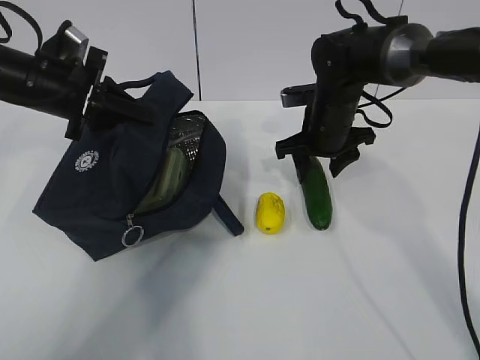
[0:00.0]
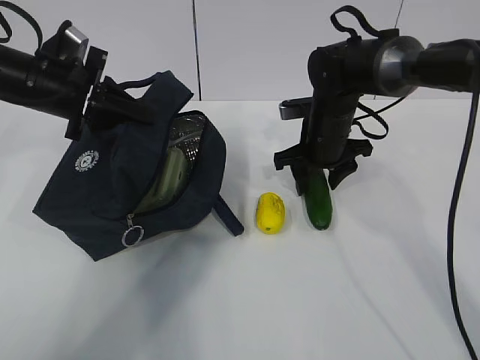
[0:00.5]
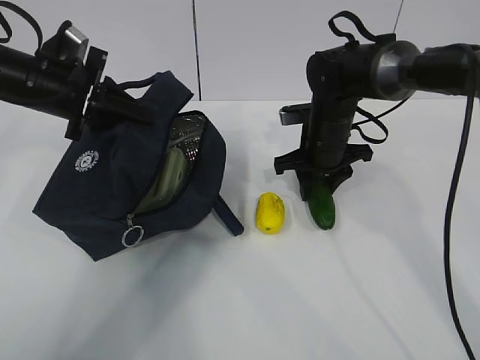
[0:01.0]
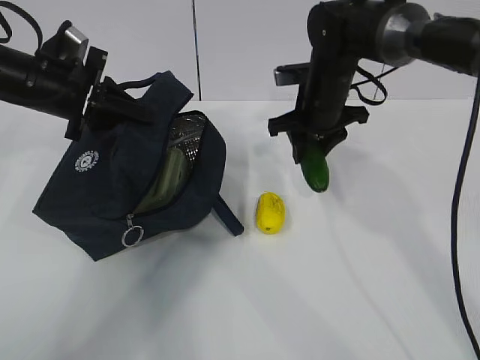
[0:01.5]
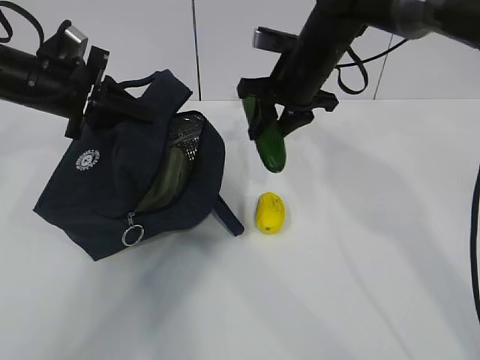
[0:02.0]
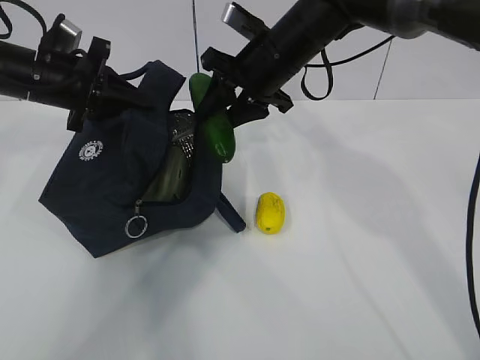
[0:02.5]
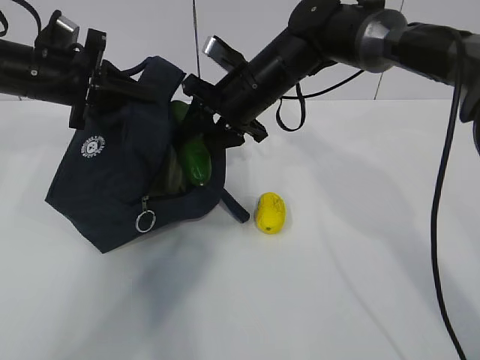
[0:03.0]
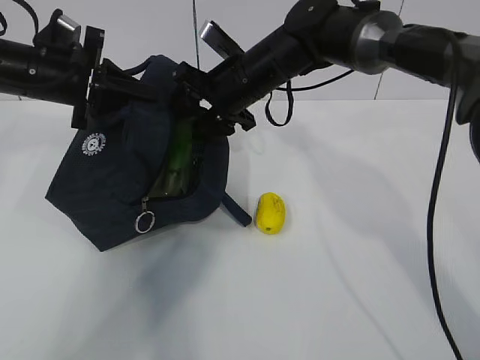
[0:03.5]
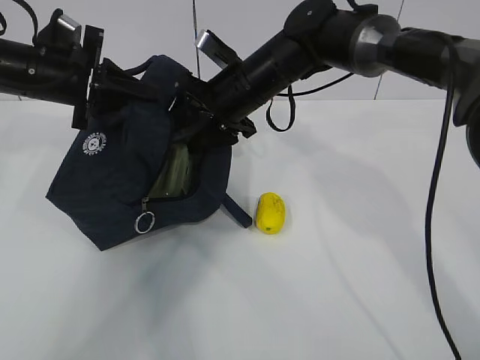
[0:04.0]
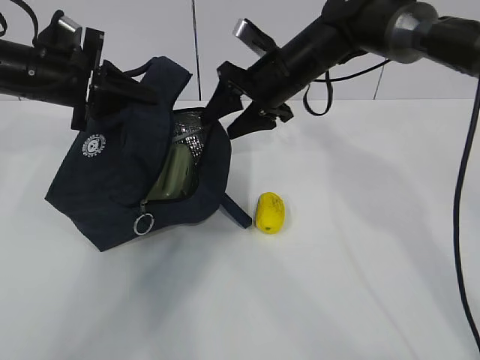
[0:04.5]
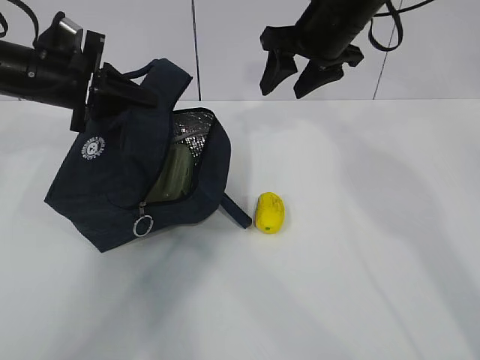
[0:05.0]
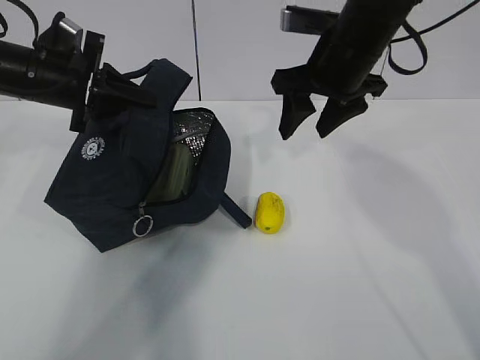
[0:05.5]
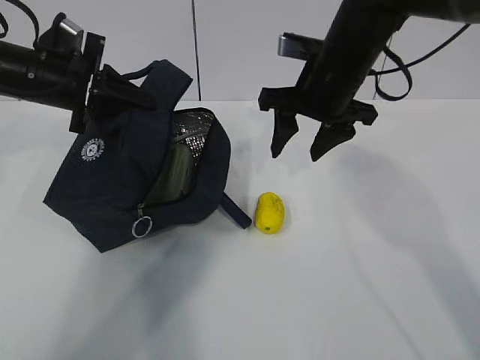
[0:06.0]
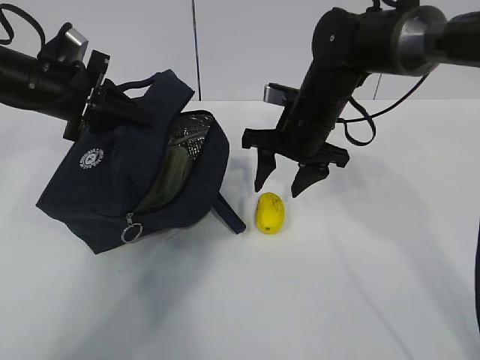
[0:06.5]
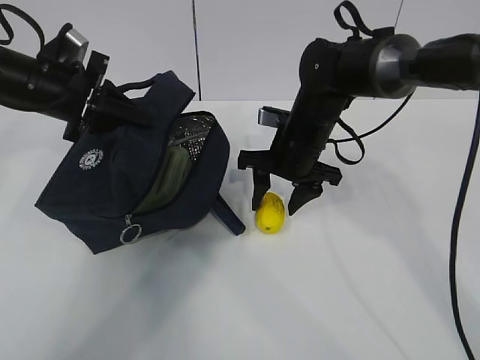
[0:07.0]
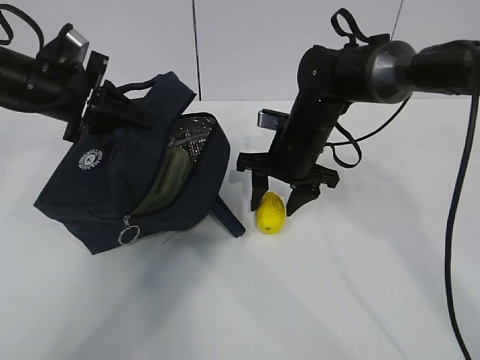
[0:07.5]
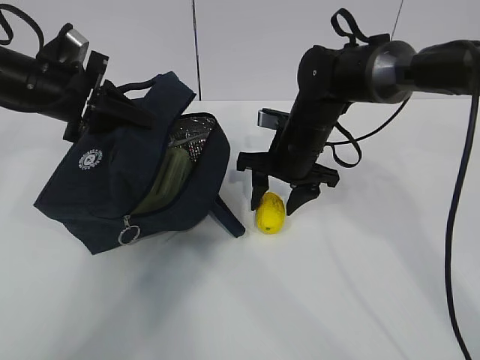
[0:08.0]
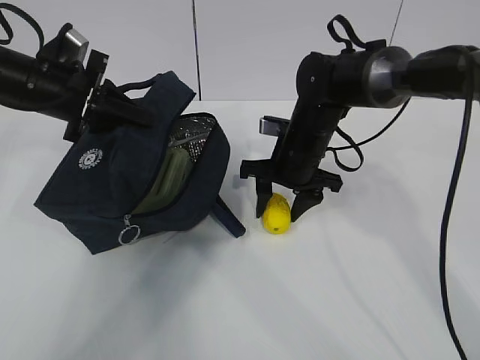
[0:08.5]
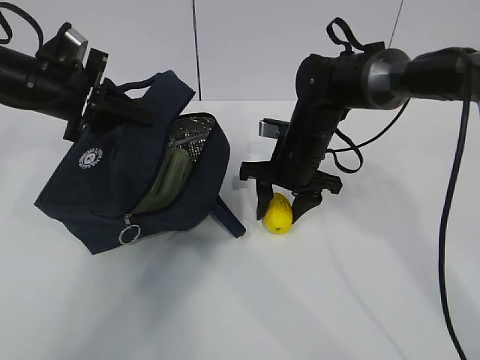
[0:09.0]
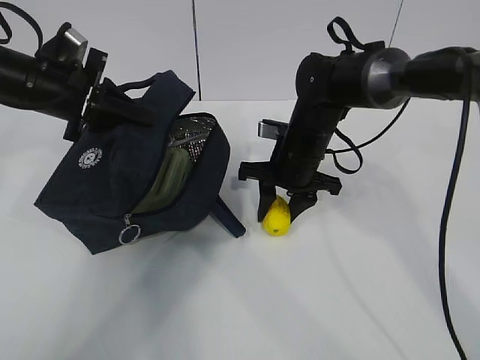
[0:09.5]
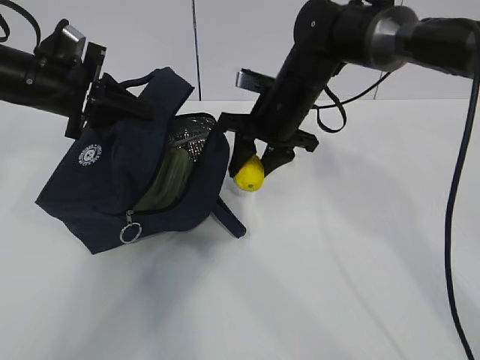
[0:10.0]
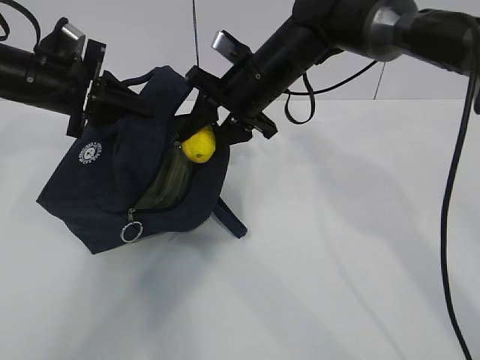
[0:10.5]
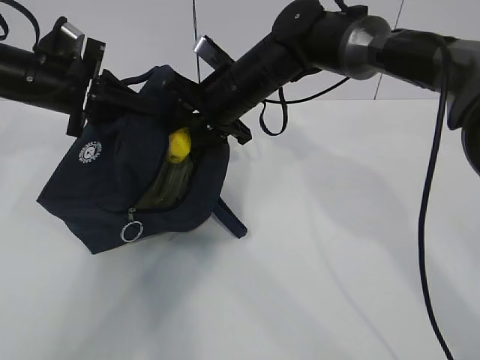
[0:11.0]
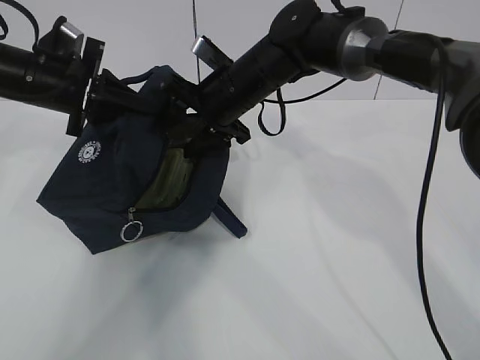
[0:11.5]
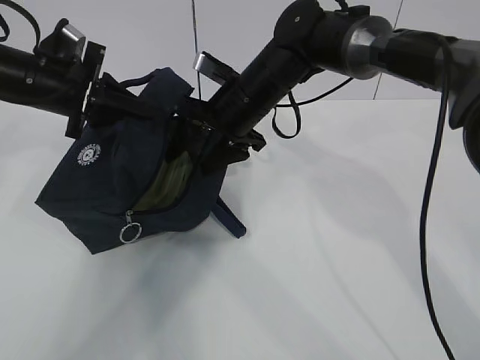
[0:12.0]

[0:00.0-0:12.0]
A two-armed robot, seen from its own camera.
Step, 0:00.0 to 0:03.5: Grab the lemon with your right hand.
Step, 0:05.5 to 0:07.5: Grab the lunch bag with your right hand.
Step, 0:08.0 to 0:10.5: Move the lunch bag to the right.
0:00.0 to 0:02.0: The right gripper shifts approximately 5 cm upward.
0:02.0 to 0:04.0: The right gripper goes some 5 cm to the left.
0:04.0 to 0:06.0: The right gripper heads to the right, covering roughly 10 cm.
0:06.0 to 0:08.0: The right gripper goes about 10 cm downward.
0:08.0 to 0:10.0: The right gripper moves about 5 cm.
0:10.0 to 0:12.0: The right gripper opens its fingers.

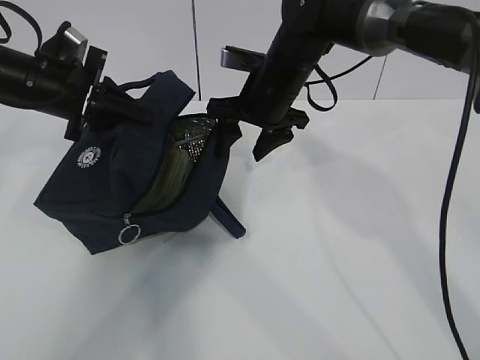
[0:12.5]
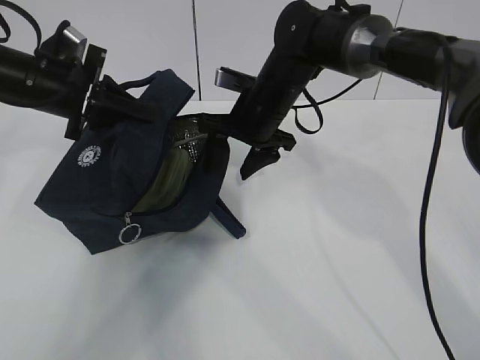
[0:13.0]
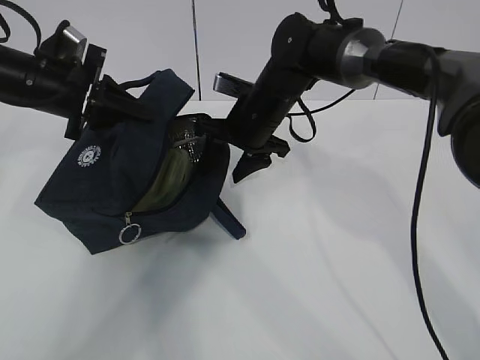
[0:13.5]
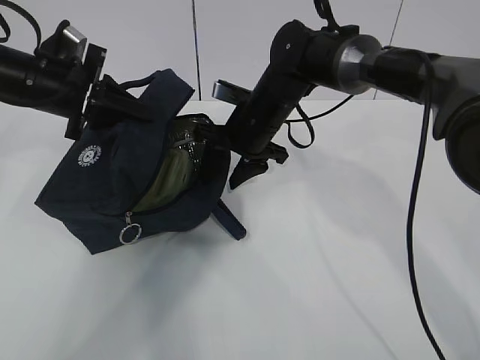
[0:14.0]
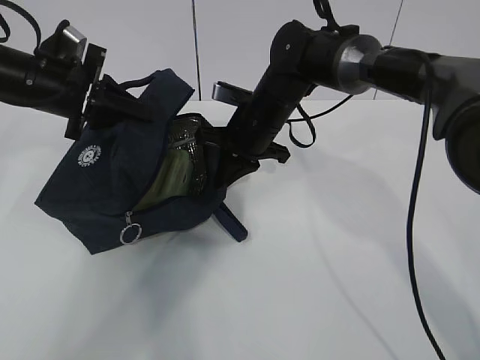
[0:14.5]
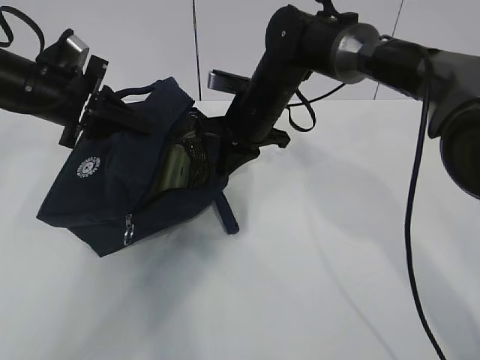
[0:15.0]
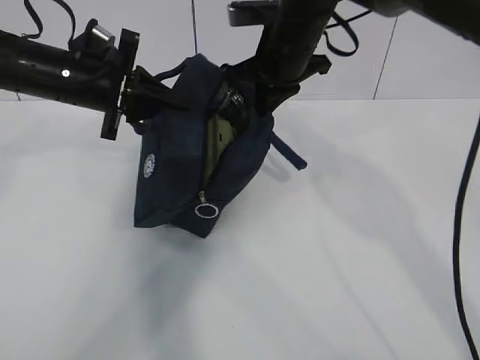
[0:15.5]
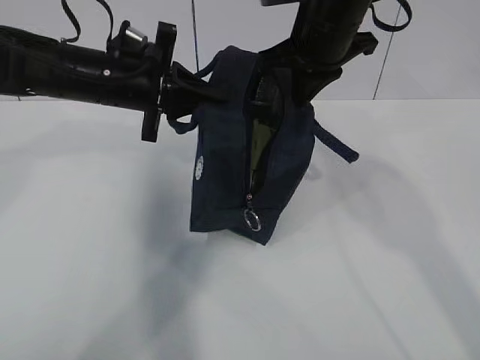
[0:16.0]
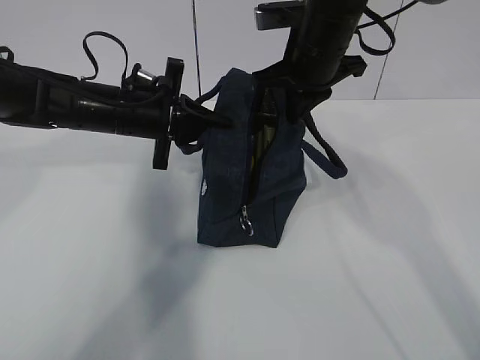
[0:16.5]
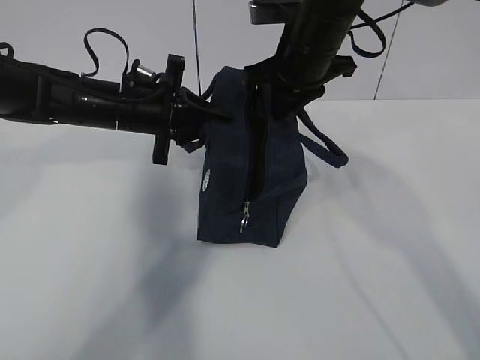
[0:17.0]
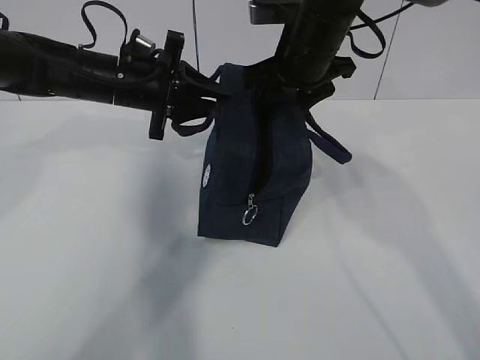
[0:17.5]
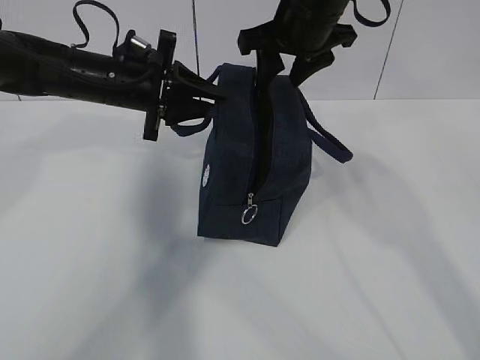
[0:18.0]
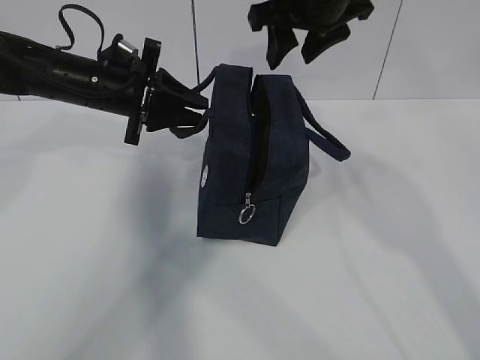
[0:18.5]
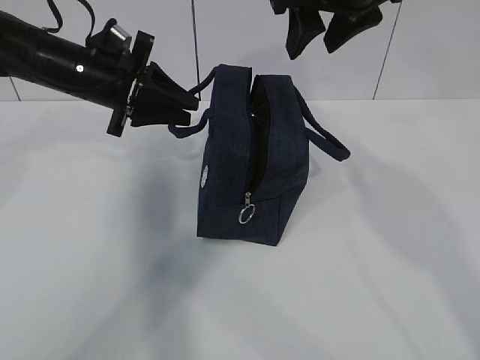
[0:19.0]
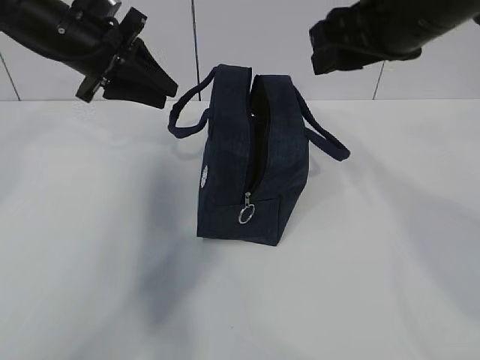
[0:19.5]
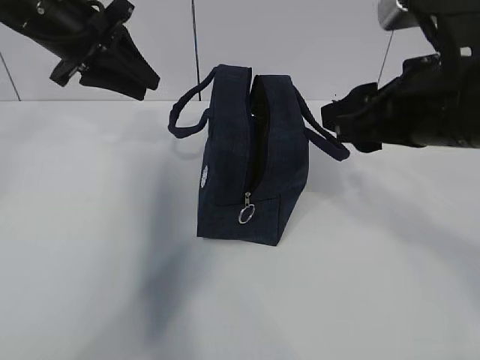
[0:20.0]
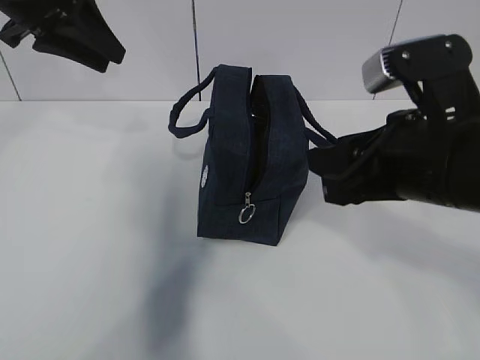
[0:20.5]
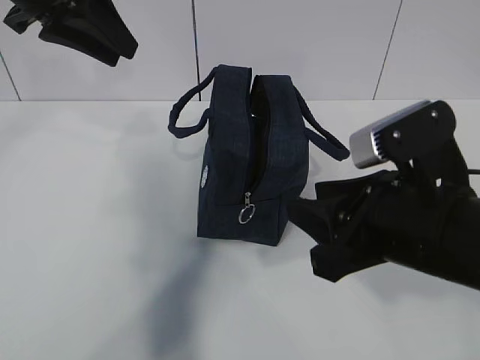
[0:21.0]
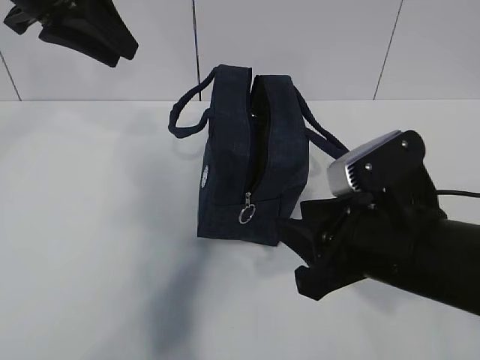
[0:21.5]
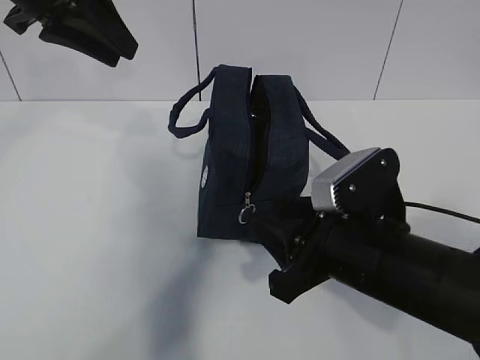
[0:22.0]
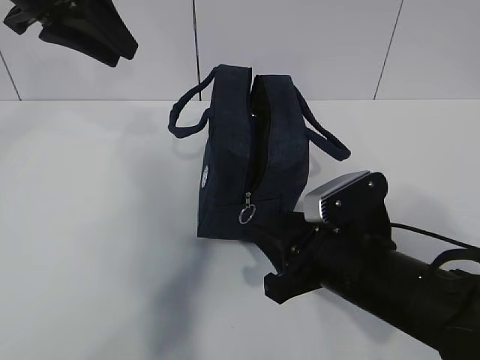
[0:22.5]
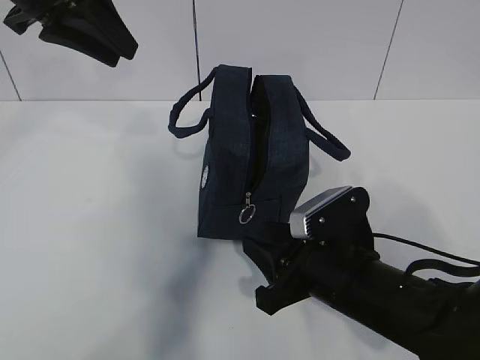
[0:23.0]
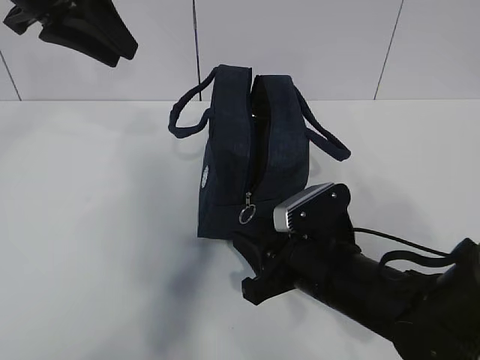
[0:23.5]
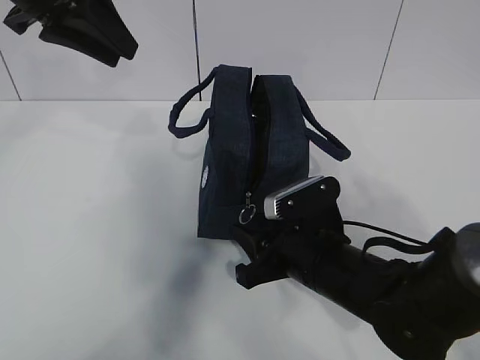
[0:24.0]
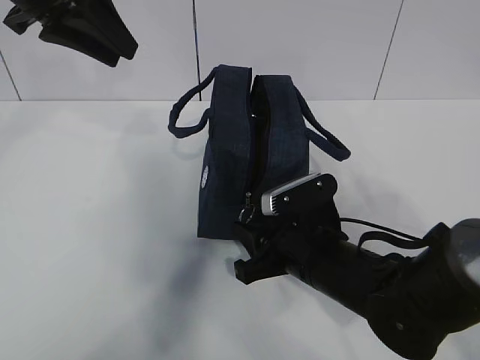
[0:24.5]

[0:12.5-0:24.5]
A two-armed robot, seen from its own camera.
0:12.5 to 0:14.5: The right gripper travels downward by about 5 cm, and closes up.
0:14.5 to 0:16.5: The right gripper shifts about 15 cm upward and to the right; the left gripper goes approximately 10 cm to the right.
0:16.5 to 0:18.5: The left gripper opens up. The right gripper shifts approximately 5 cm upward, and opens.
0:18.5 to 0:20.5: The left gripper travels upward by roughly 15 cm, while the right gripper is displaced backward by about 20 cm.
0:20.5 to 0:22.5: The right gripper travels downward by approximately 15 cm.
0:22.5 to 0:24.5: The right gripper ends up some 5 cm from where it was.

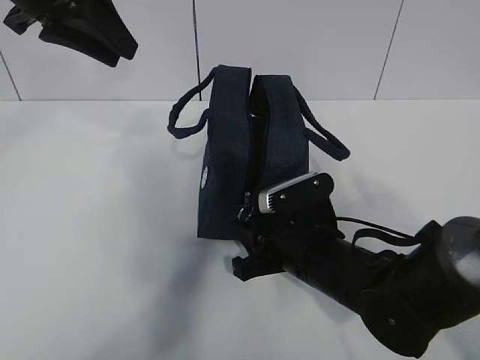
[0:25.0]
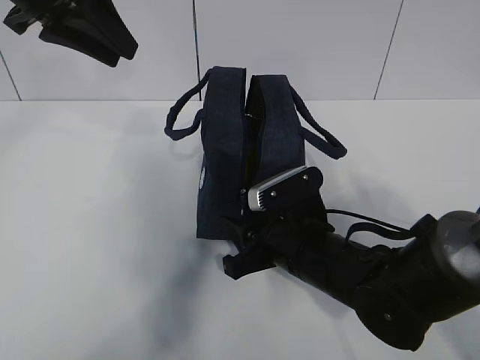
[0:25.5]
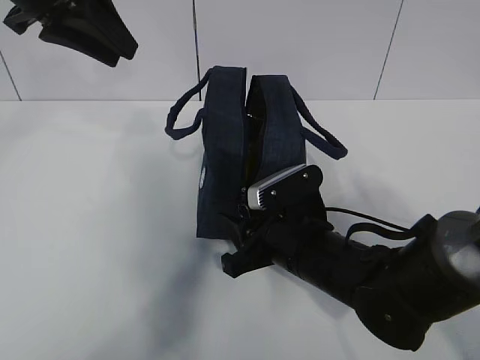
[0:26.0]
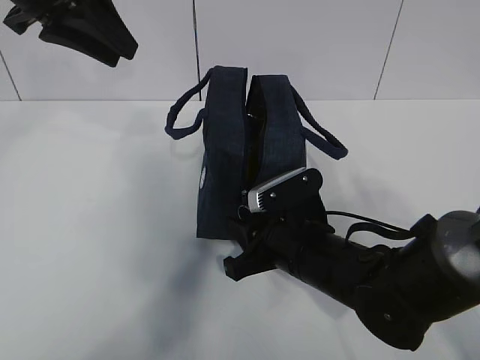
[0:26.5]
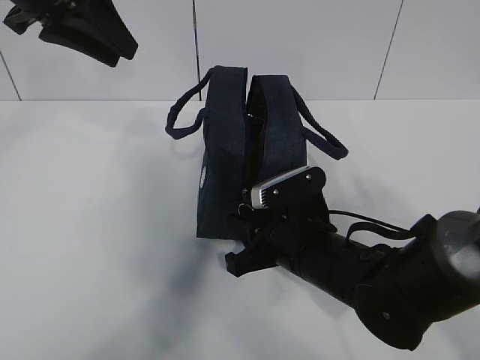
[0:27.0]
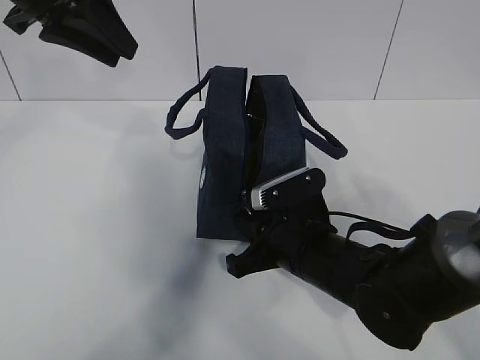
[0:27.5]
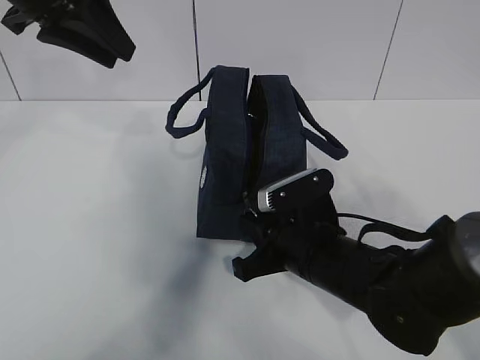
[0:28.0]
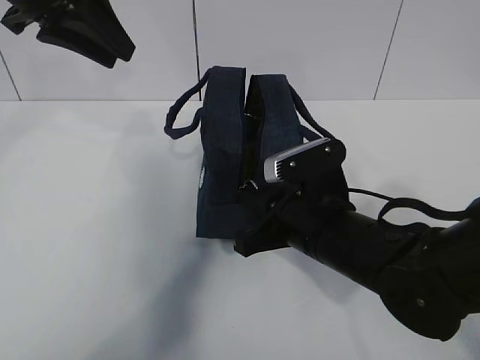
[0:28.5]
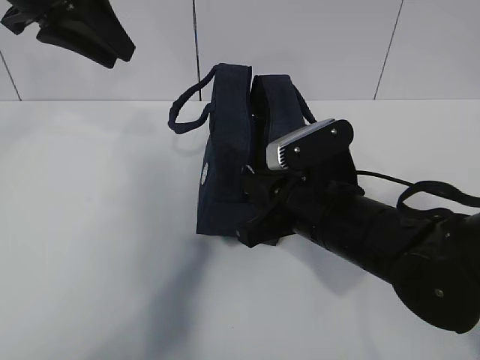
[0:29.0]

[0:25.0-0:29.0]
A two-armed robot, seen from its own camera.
0:25.0 to 0:27.0: The grippers make only small movements.
0:27.0 to 0:29.0: The right gripper shifts roughly 5 cm upward, and closes up.
